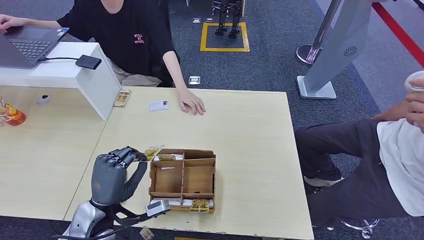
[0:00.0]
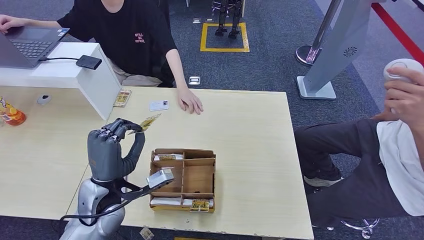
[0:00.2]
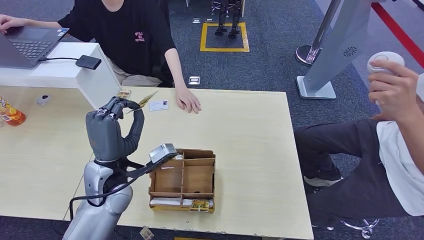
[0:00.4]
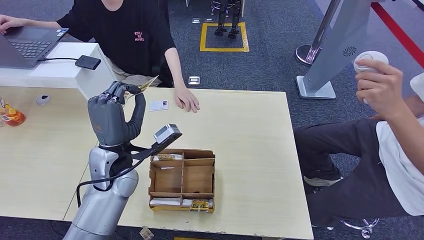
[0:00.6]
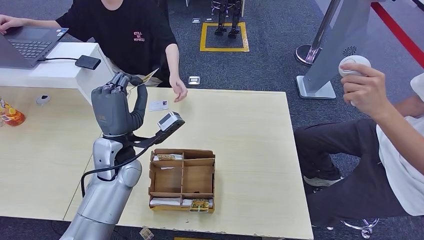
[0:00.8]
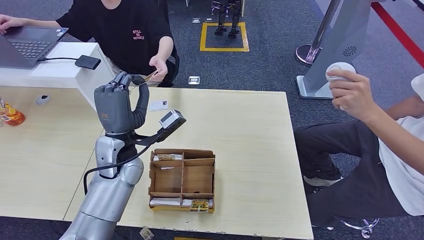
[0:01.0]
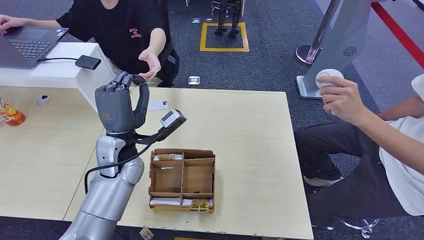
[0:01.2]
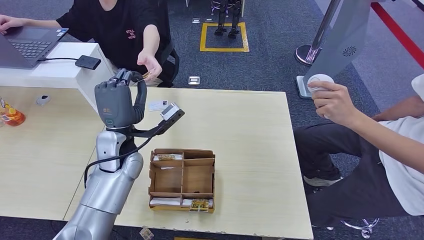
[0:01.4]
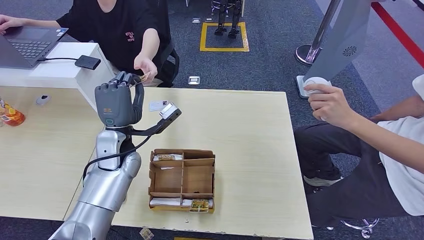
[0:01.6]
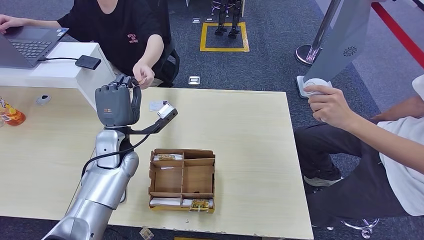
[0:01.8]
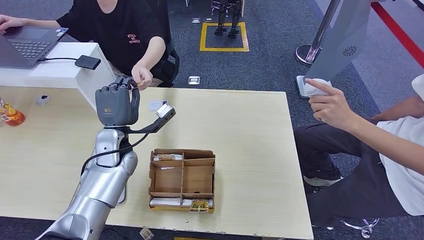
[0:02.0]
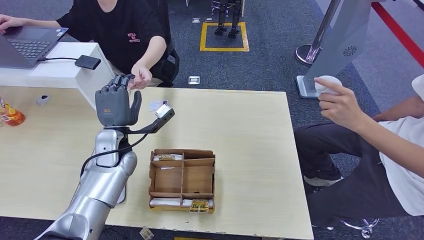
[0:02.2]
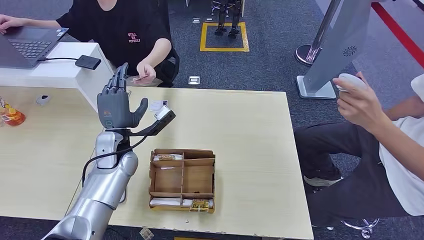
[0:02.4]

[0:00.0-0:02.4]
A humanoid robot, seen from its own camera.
Step, 0:00.0 to 0:02.2: Hand the room key to the person.
0:00.0 to 0:01.2: The left hand travels forward, upward and to the right by roughly 15 cm.
0:01.2 to 0:02.4: The left hand ends up roughly 5 cm from where it was.

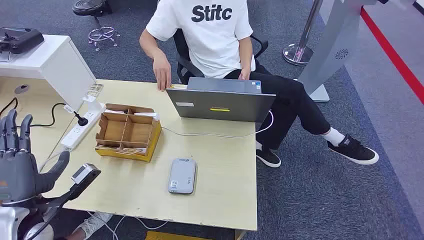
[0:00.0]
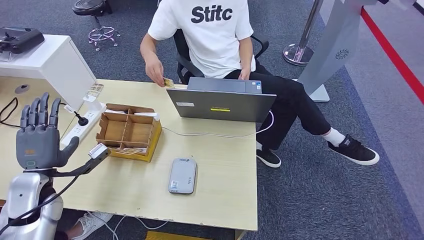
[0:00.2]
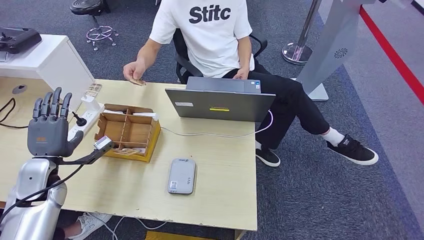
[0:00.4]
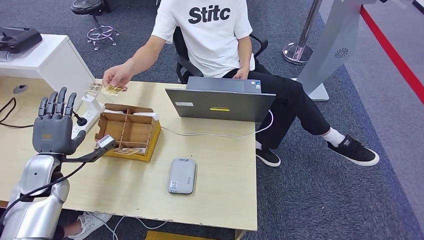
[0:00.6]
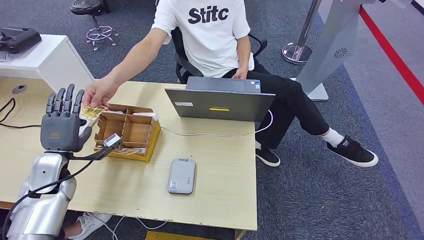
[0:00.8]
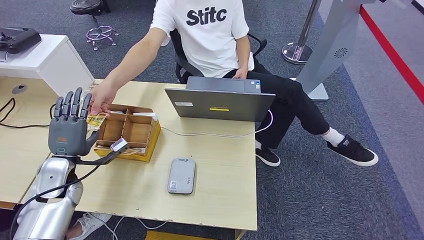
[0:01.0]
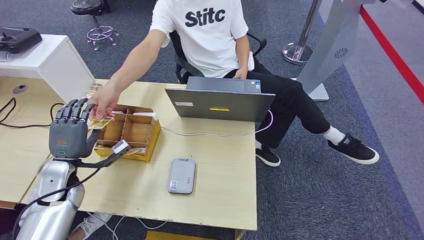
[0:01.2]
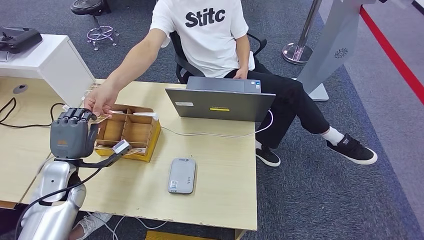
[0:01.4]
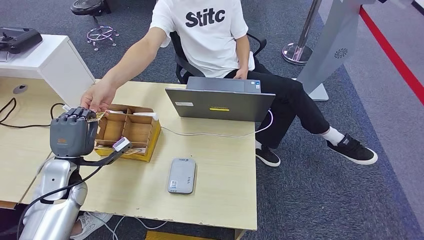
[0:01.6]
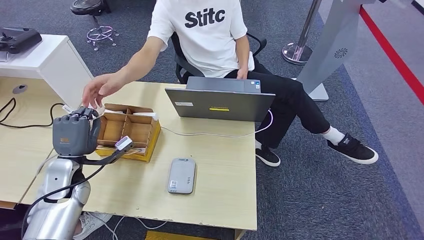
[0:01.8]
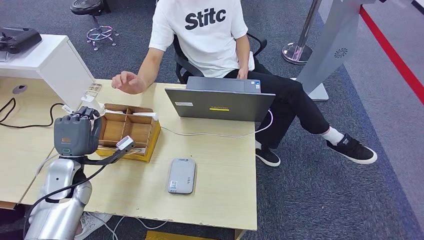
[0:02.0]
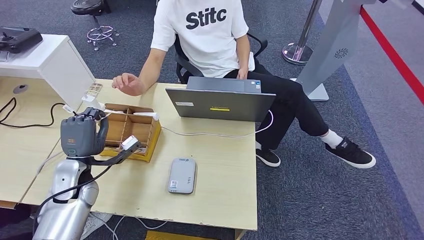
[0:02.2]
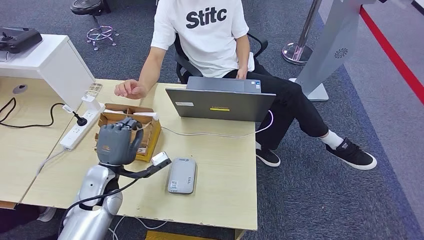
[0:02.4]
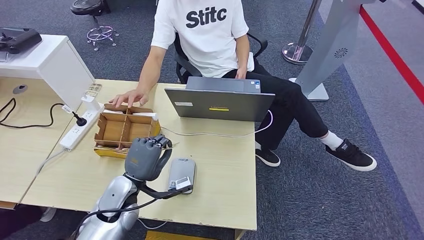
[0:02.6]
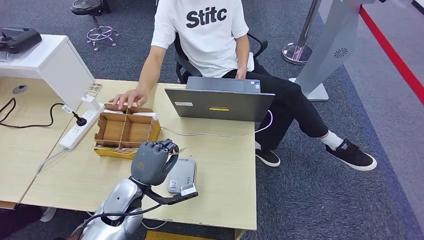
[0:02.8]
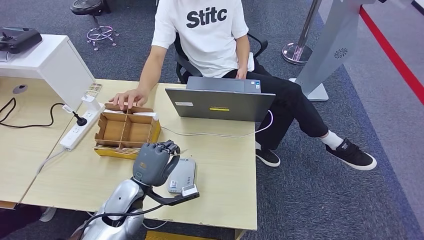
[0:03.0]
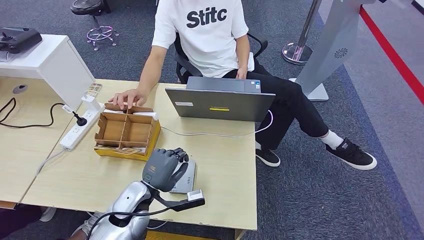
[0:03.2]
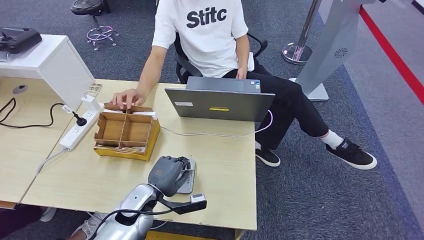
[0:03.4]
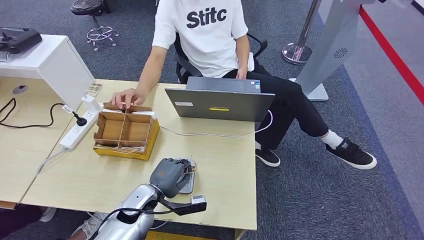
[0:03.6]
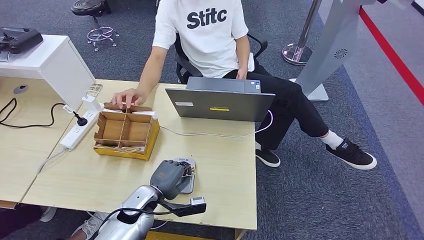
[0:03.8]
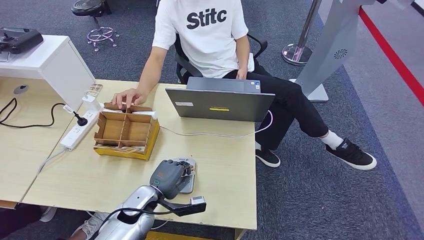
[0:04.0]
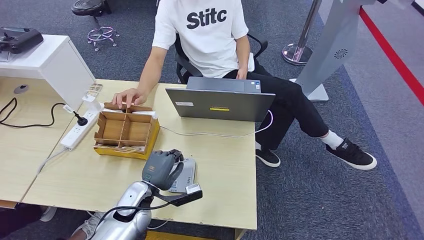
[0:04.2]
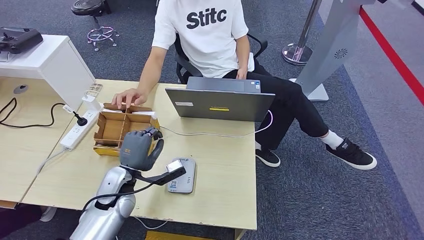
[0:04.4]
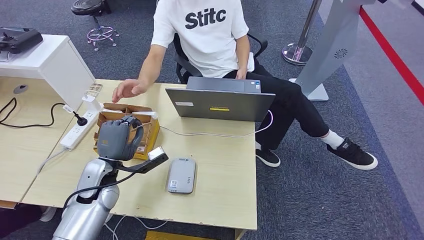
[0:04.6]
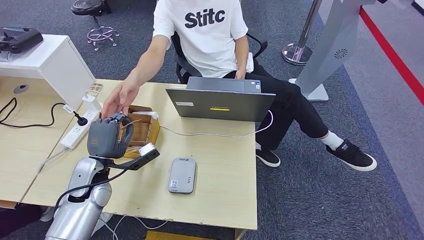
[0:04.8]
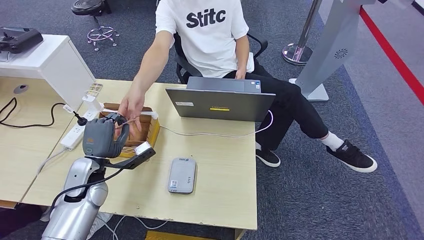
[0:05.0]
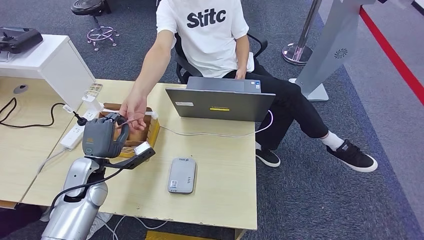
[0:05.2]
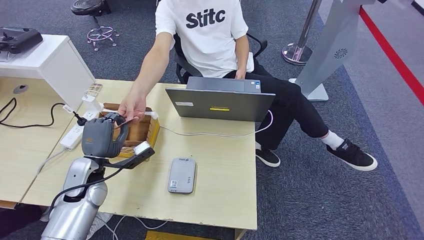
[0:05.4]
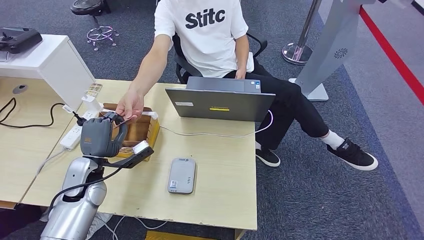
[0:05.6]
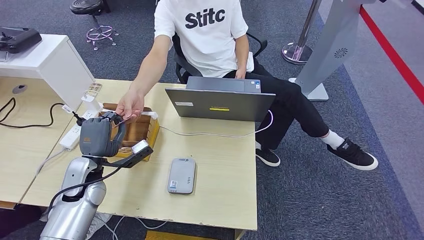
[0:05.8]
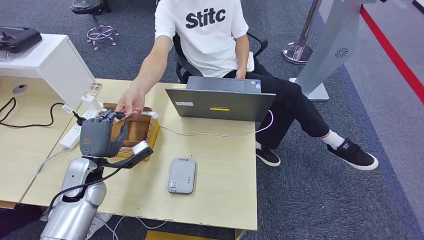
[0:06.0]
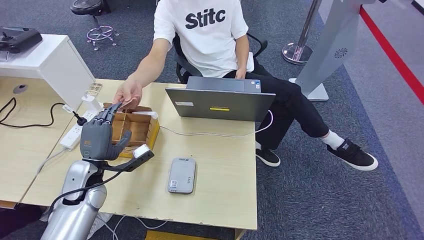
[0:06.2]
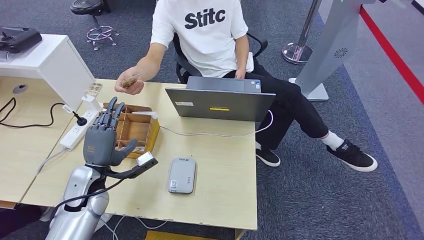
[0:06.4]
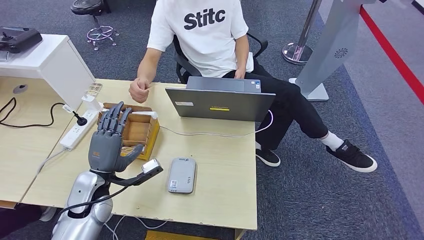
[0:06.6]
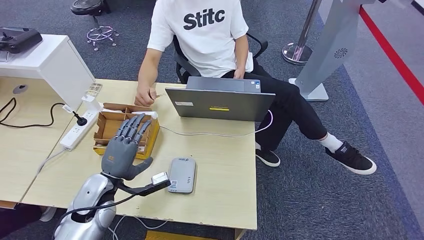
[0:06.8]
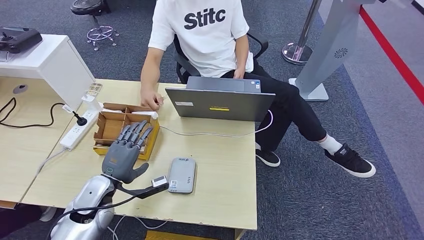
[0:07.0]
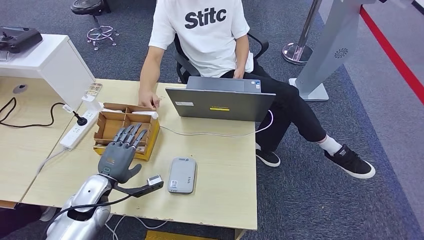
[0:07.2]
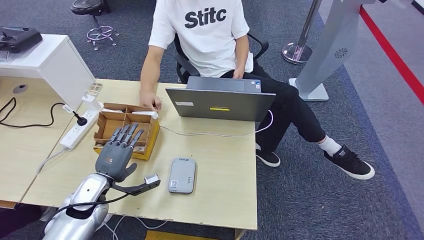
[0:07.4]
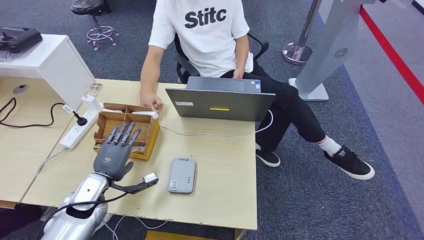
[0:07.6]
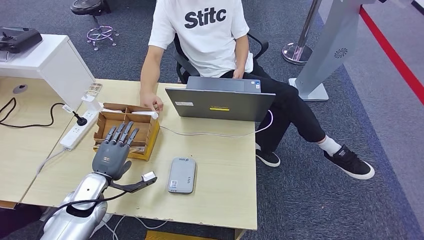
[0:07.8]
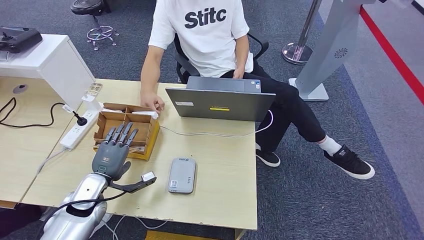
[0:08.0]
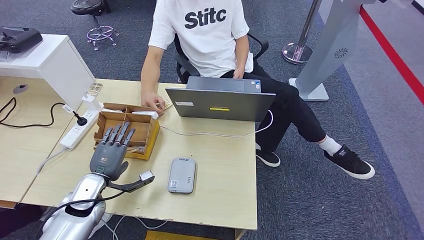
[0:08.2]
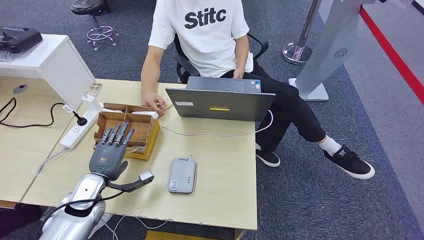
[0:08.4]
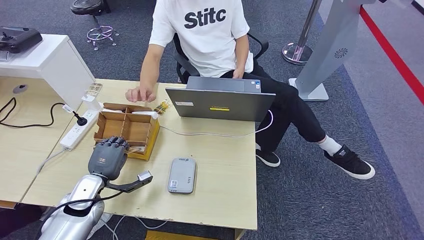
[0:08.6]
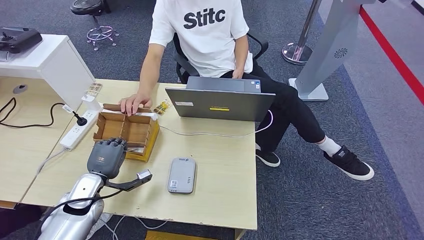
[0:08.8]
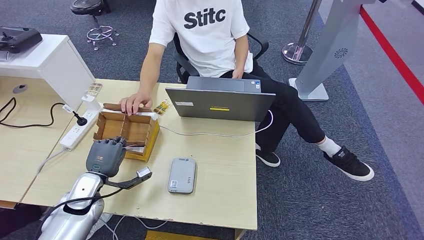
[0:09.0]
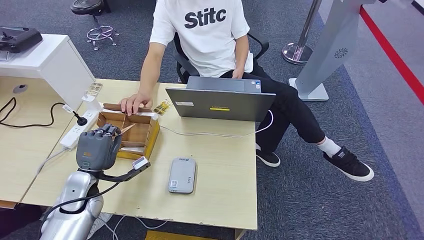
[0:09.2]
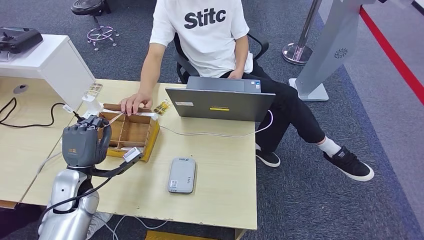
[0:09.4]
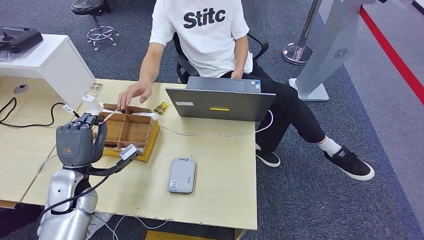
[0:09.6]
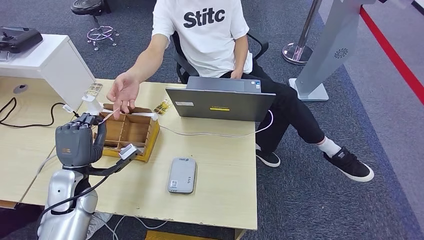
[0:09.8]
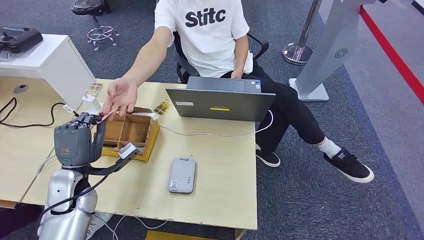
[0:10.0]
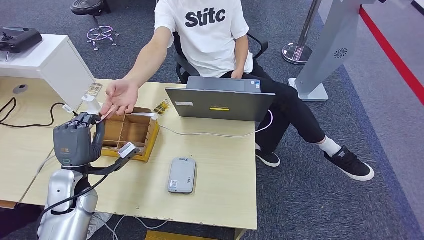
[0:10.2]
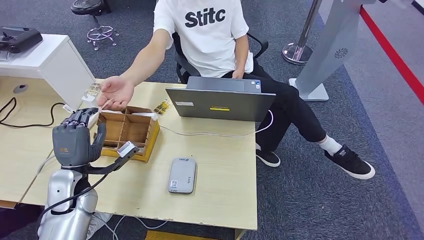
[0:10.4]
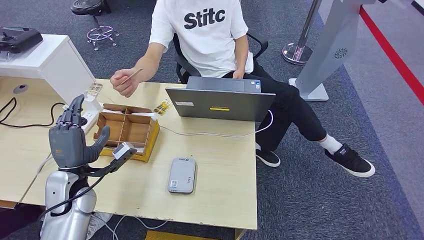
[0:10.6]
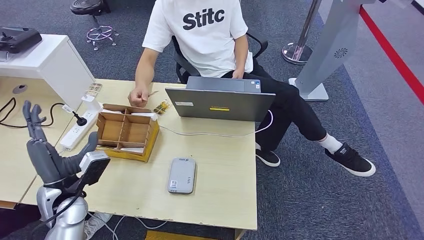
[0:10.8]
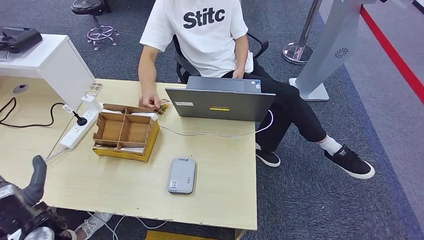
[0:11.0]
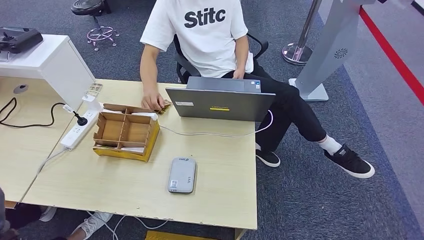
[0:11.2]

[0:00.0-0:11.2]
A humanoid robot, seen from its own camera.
Step, 0:00.0 to 0:02.2: Take the ID card from the person's hand.
Step, 0:02.4 to 0:04.2: Place the ID card on the card reader.
Step, 0:04.4 to 0:07.0: Hand the ID card to the person.
Step, 0:07.6 to 0:09.6: Pick up the room key from the key card box.
Step, 0:09.8 to 0:11.2: Hand the room key to the person.
0:01.6 to 0:03.2: The left hand is displaced to the right by some 20 cm.
0:03.2 to 0:04.8: The left hand shifts roughly 10 cm to the left.
0:04.8 to 0:06.4: The hands move only a little.
0:06.4 to 0:08.0: The left hand is displaced downward by roughly 5 cm.
0:08.0 to 0:09.6: The left hand is displaced upward by about 5 cm.
0:09.6 to 0:11.2: The left hand is displaced backward and to the left by approximately 15 cm.
